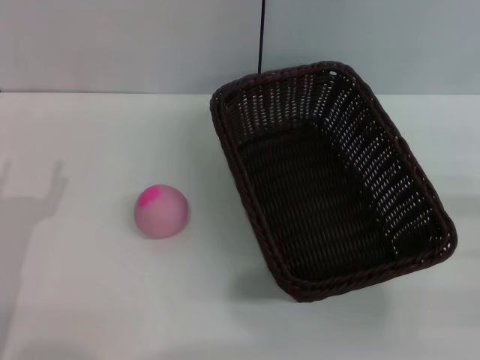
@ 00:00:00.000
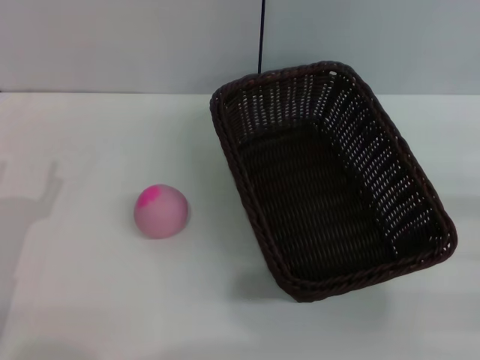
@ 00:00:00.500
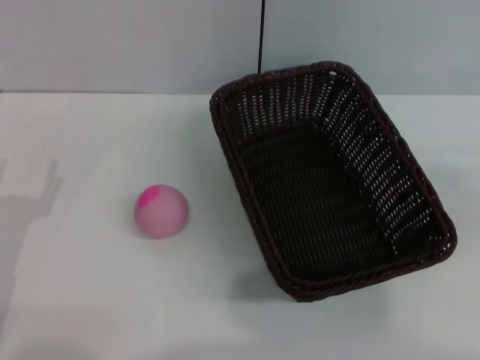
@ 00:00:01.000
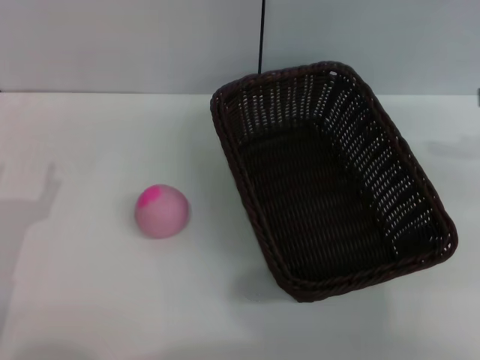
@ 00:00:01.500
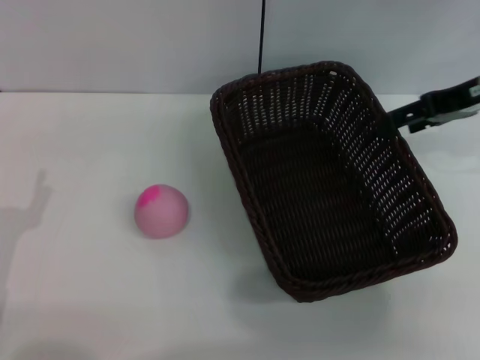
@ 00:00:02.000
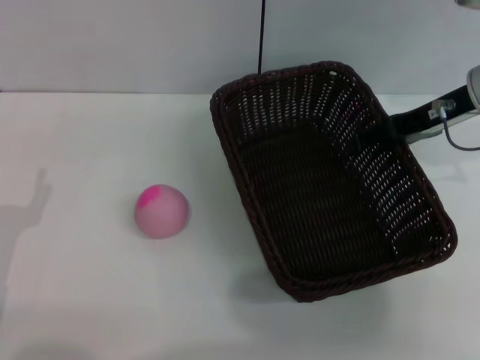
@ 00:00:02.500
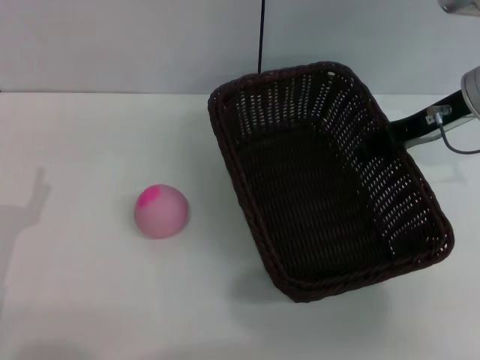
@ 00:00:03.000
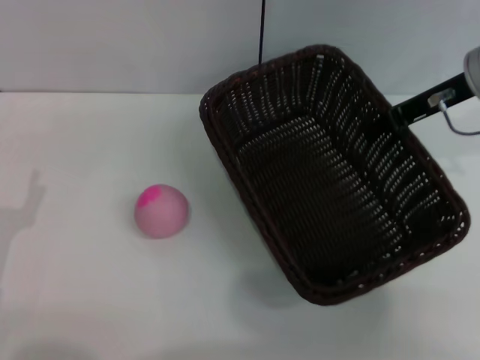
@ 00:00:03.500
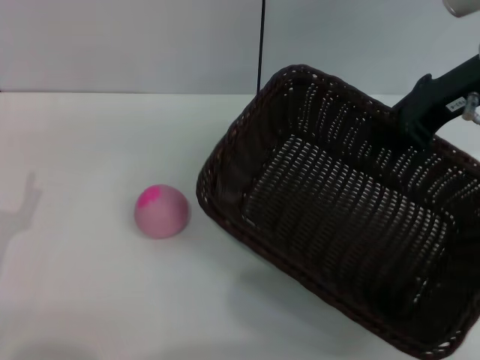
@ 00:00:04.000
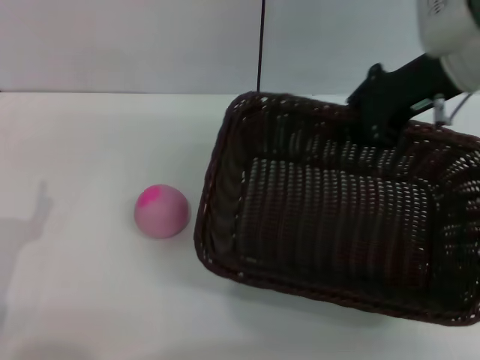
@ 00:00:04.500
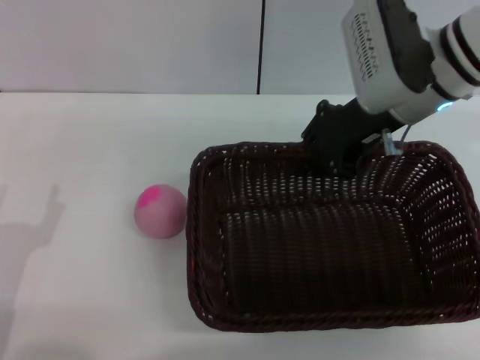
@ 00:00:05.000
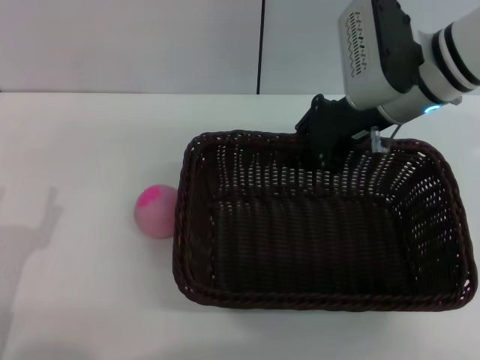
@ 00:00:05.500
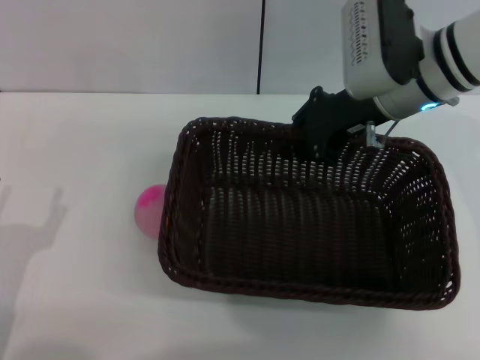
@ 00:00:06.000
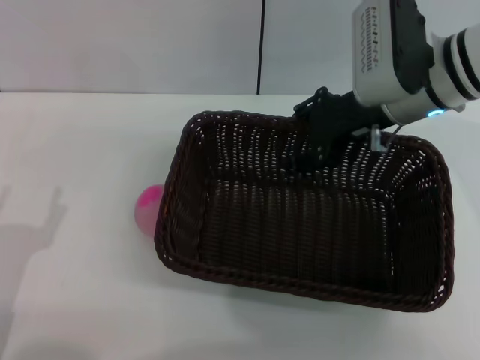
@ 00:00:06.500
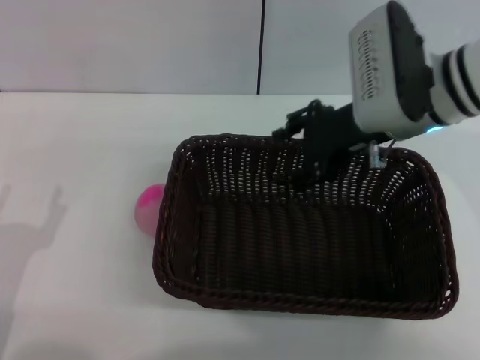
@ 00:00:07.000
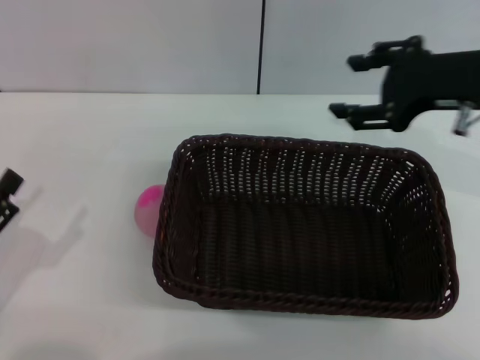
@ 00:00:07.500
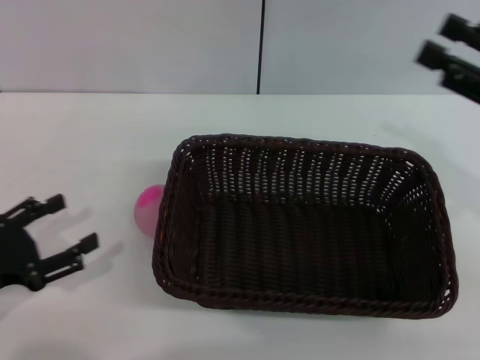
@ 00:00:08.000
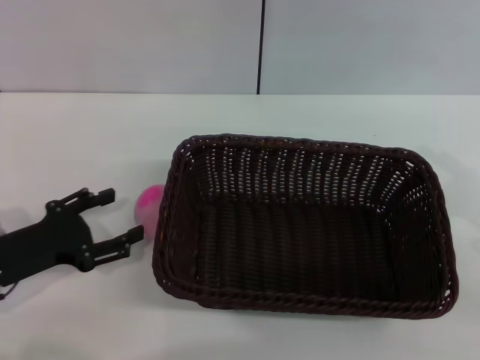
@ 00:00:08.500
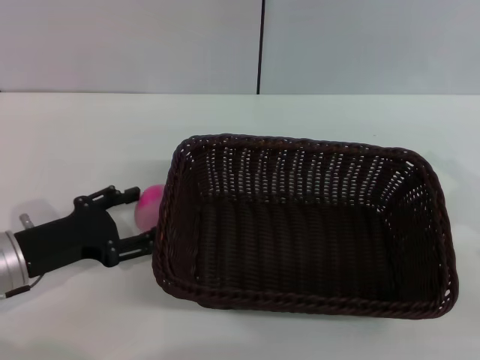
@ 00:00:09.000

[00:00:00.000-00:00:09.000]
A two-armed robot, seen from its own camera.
Step, 00:00:00.000 to 00:00:03.500: Pick up the dark basket with the right gripper.
Step, 00:00:04.000 to 00:00:07.500: Place the dark basket in the center of view with the right gripper.
00:00:00.000 to 00:00:02.000: The right gripper heads forward, upward and to the left, covering approximately 25 cm.
00:00:02.000 to 00:00:04.500: The right gripper travels to the left by approximately 10 cm, and closes its fingers.
00:00:04.500 to 00:00:07.000: The right gripper changes place by roughly 5 cm, and opens its fingers.
00:00:07.000 to 00:00:09.000: The left gripper travels forward by some 10 cm. The right gripper moves to the right and backward, about 25 cm.

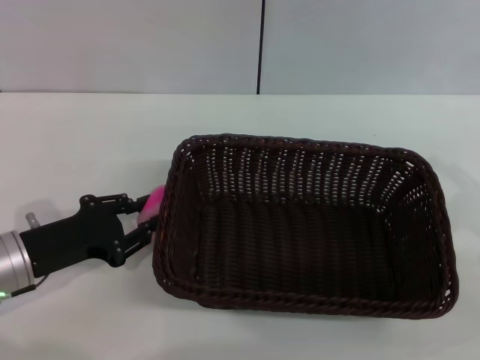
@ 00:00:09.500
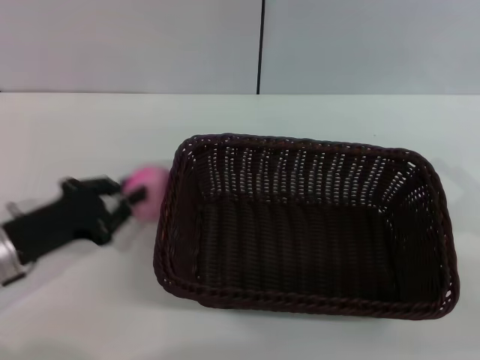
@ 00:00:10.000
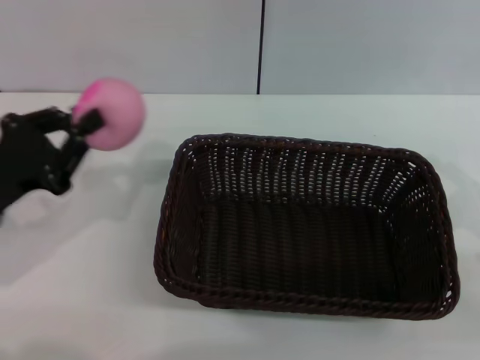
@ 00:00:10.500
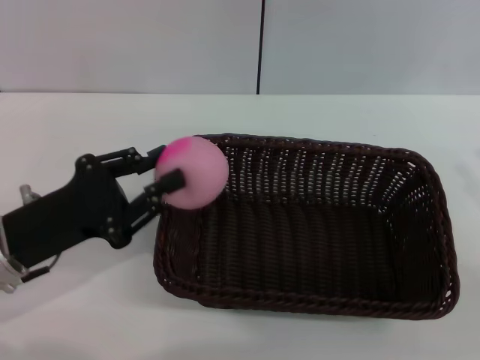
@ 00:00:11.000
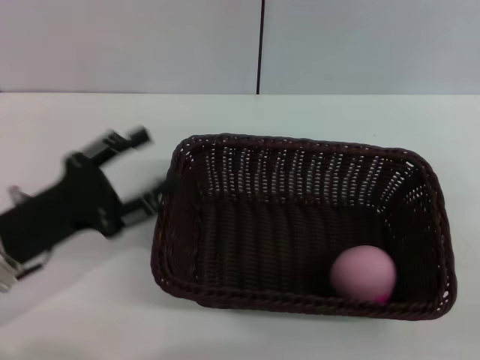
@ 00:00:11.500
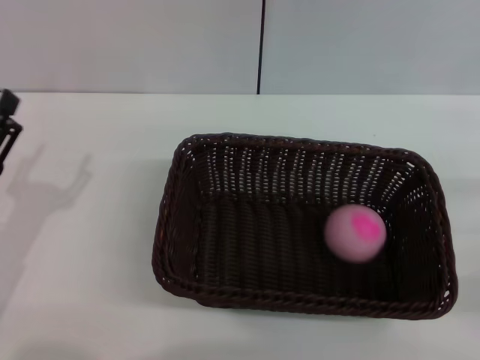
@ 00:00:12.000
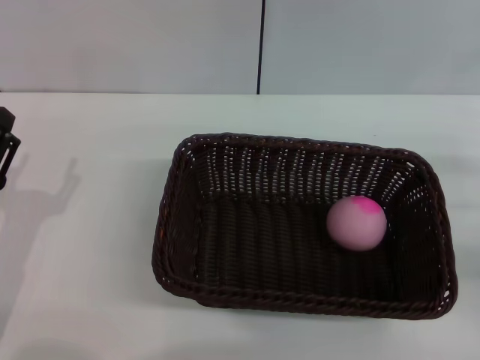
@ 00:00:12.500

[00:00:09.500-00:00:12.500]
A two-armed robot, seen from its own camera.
00:00:09.500 to 00:00:11.000: The left gripper closes its fingers.
00:00:11.000 to 00:00:12.500: The right gripper heads forward, covering approximately 5 cm. Meanwhile the left gripper ends up about 5 cm from where it was, and opens.
